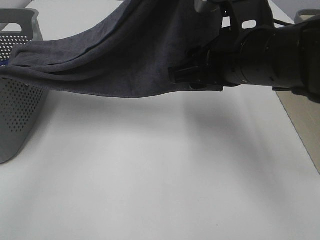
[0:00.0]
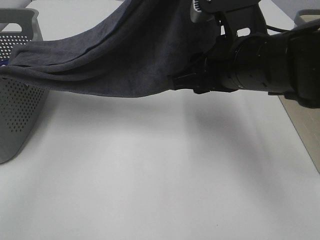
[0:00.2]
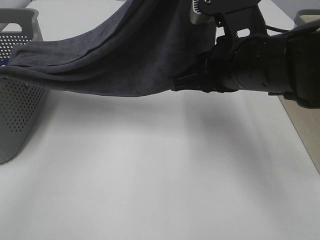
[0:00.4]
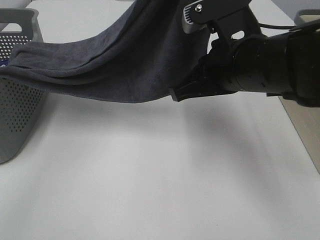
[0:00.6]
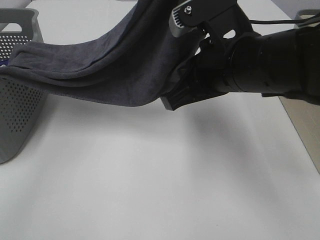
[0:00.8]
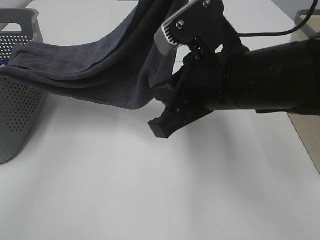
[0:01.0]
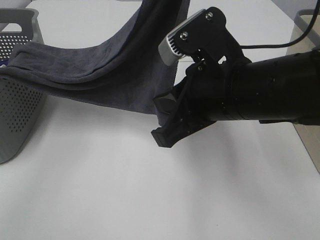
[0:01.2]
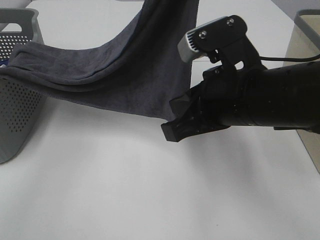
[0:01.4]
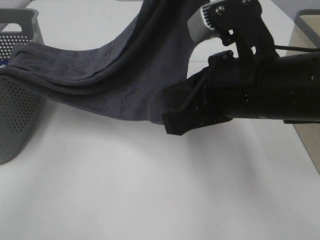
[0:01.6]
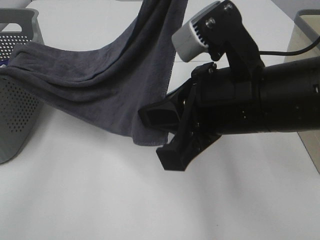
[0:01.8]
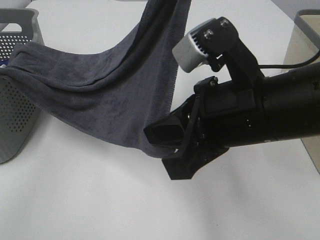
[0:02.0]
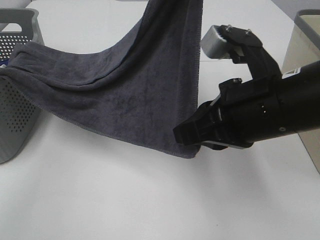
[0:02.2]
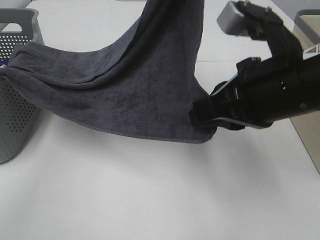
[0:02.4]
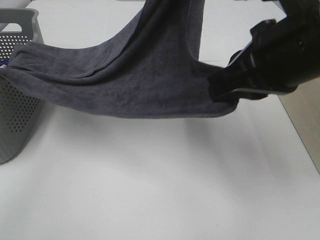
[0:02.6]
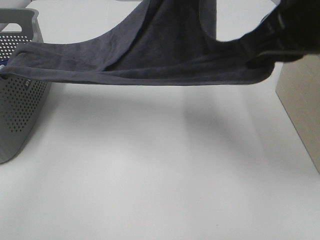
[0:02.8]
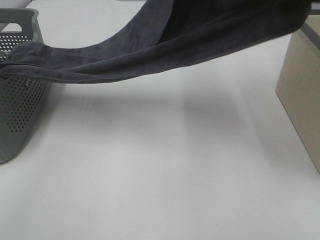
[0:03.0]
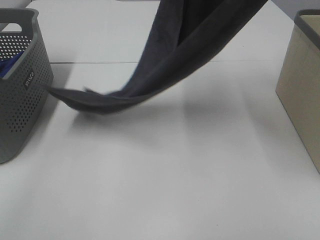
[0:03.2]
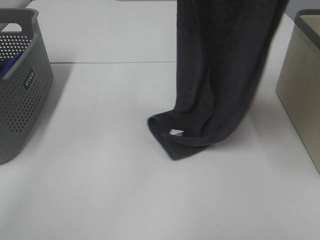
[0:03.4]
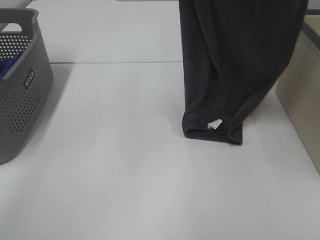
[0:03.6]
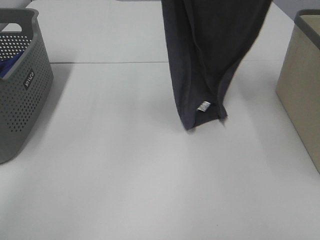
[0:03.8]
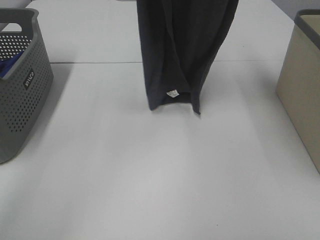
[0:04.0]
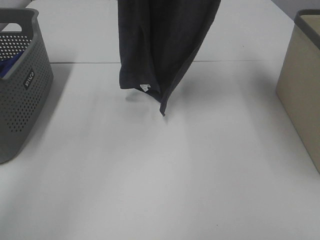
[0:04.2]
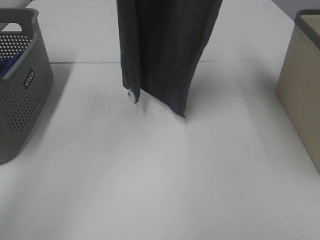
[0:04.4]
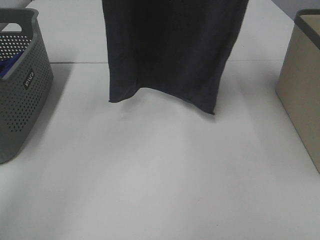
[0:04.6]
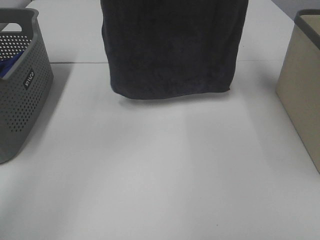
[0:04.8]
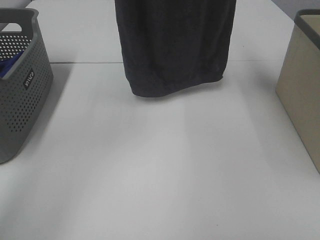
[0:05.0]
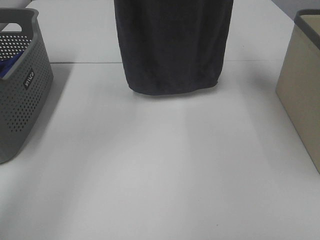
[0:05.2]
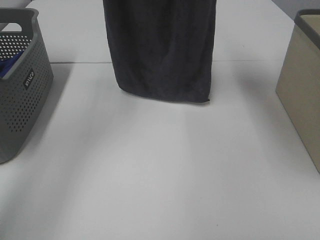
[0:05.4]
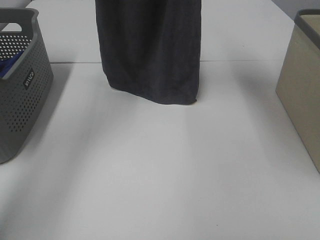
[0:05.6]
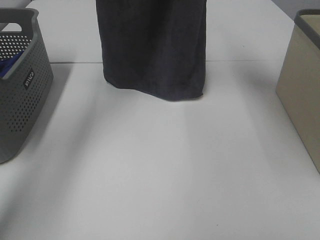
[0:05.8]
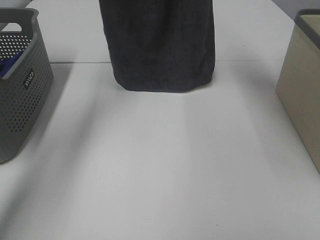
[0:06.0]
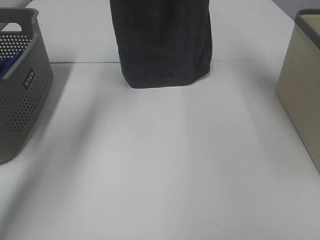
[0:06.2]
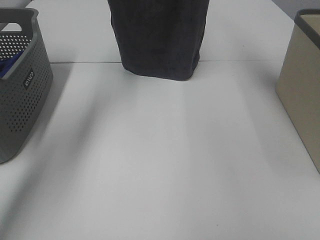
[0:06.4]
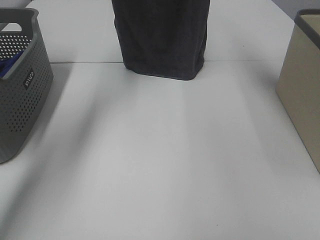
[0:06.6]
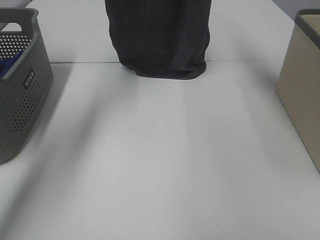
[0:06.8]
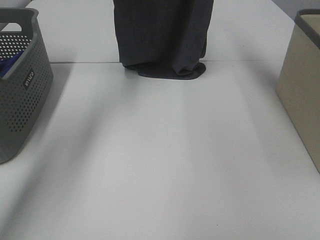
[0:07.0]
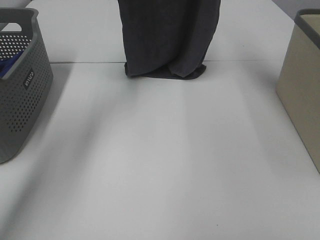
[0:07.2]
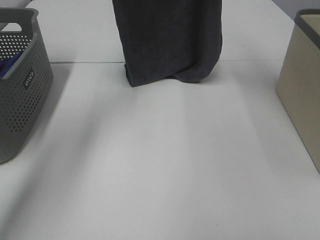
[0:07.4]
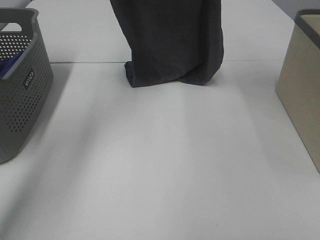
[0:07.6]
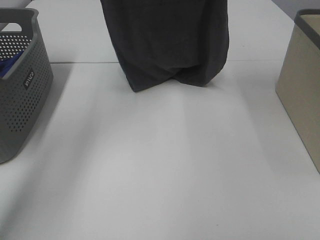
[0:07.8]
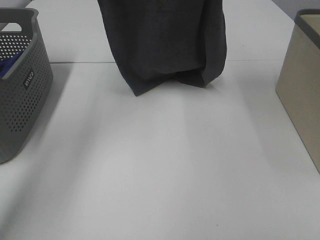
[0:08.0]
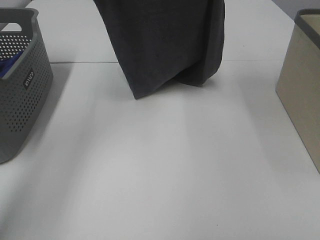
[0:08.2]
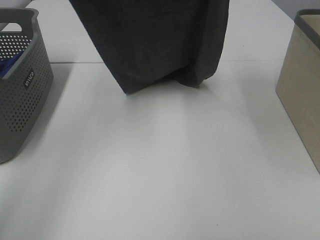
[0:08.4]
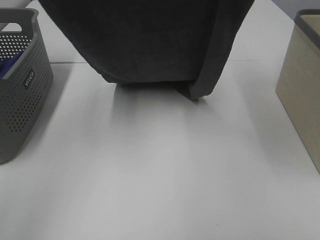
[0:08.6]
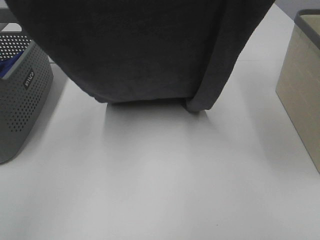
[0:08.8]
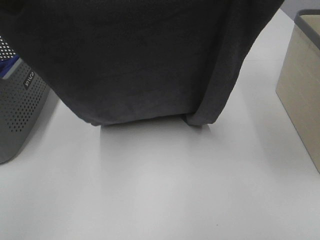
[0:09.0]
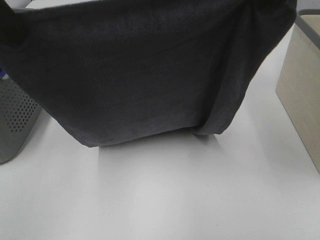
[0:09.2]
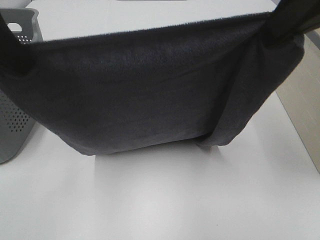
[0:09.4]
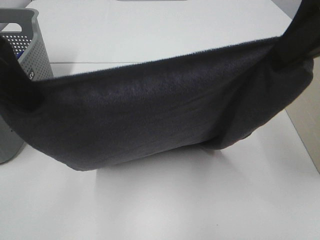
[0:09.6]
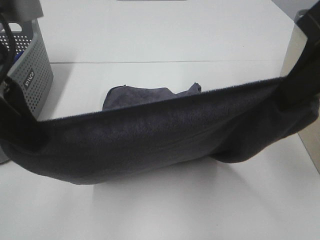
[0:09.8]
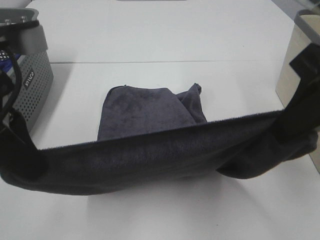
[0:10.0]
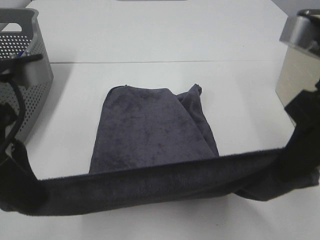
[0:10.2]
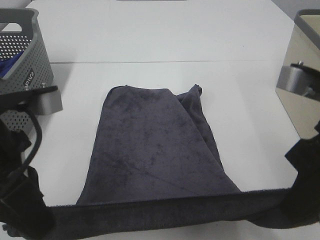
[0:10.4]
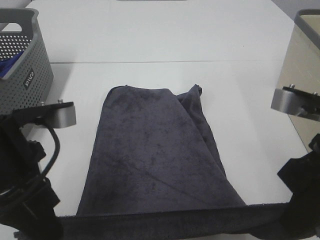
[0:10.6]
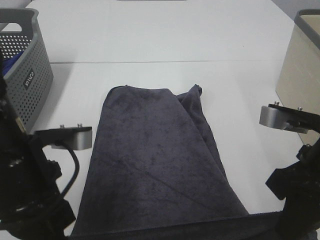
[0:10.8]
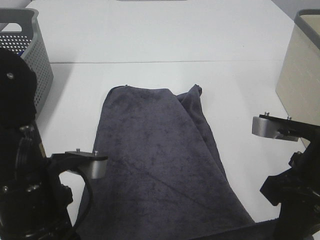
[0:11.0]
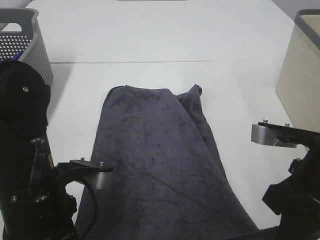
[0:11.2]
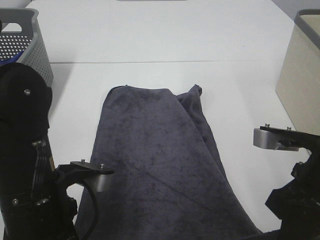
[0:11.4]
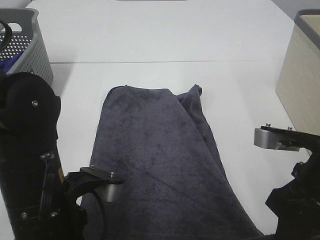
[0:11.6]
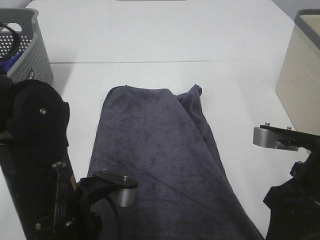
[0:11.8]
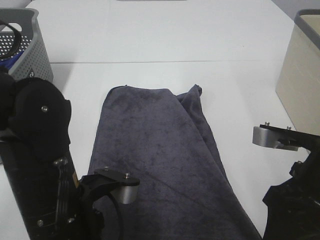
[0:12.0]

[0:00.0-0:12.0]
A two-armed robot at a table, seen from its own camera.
Task of the whole recording: Remove the towel and place it.
Step, 0:01.4 to 0:07.2: Left hand: spread the grey towel flat on the table.
Step, 0:01.4 to 0:07.2: Right hand: spread the grey towel flat on the table.
0:00.0 to 0:01.6: The right gripper closes up.
0:01.6 to 0:03.0: The right gripper shifts about 15 cm upward.
0:03.0 to 0:04.4: The right gripper goes approximately 20 cm upward and forward. The left gripper moves to the left, forward and upward, about 15 cm.
0:04.4 to 0:06.0: The right gripper moves forward, roughly 10 cm. The left gripper moves forward and downward, about 15 cm.
0:06.0 to 0:07.6: The left gripper ends up some 5 cm from where it was. The right gripper ends up approximately 5 cm from where it was.
0:07.6 to 0:09.0: Both grippers travel together backward, about 20 cm.
0:09.0 to 0:10.4: The two grippers go some 20 cm downward and backward.
0:10.4 to 0:12.0: The left gripper travels downward and to the right by roughly 10 cm, and opens up. Meanwhile the right gripper is displaced downward by about 5 cm, and opens its fingers.

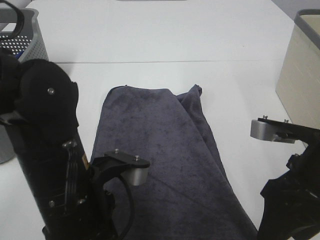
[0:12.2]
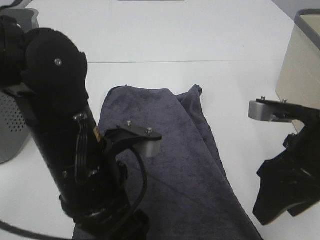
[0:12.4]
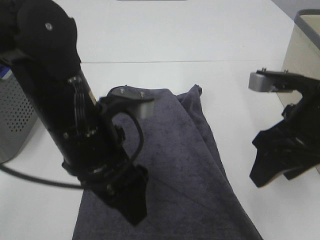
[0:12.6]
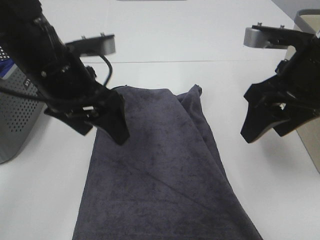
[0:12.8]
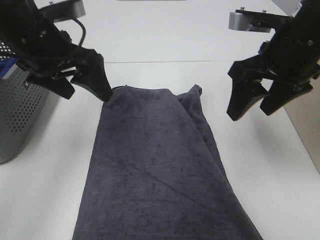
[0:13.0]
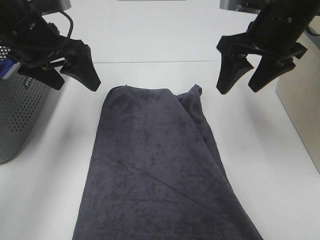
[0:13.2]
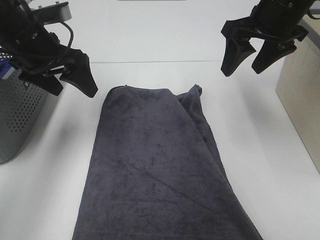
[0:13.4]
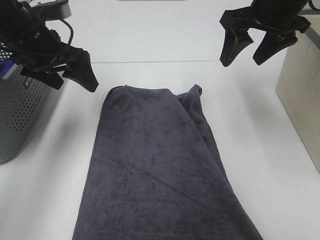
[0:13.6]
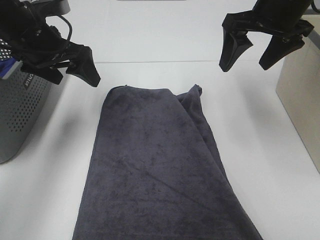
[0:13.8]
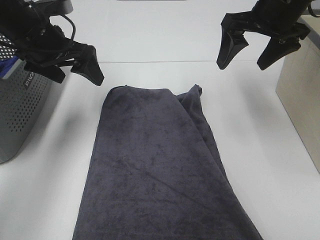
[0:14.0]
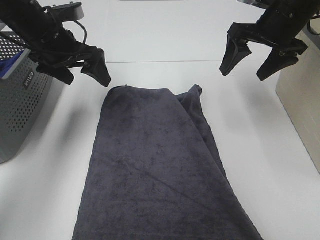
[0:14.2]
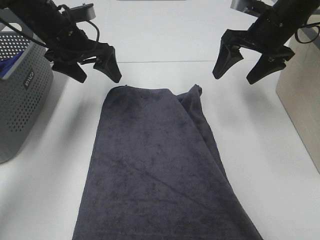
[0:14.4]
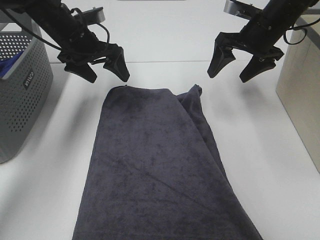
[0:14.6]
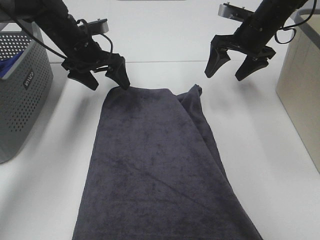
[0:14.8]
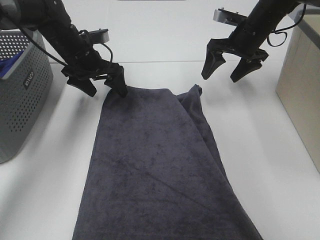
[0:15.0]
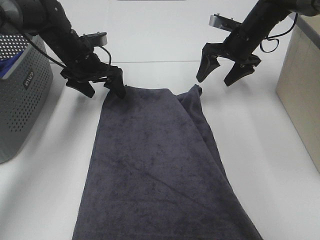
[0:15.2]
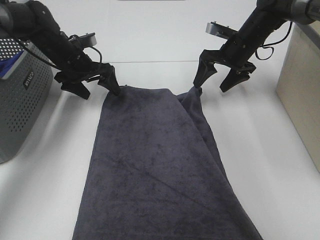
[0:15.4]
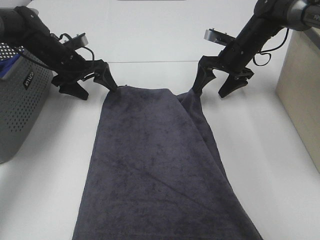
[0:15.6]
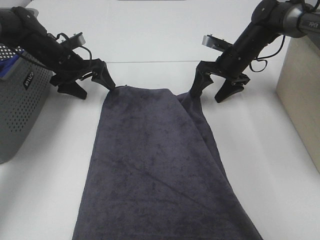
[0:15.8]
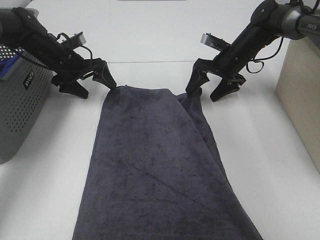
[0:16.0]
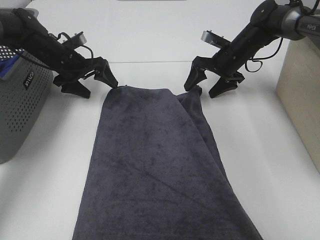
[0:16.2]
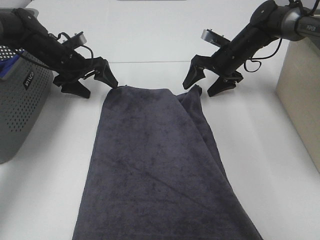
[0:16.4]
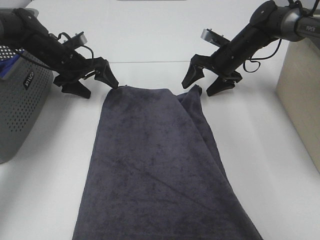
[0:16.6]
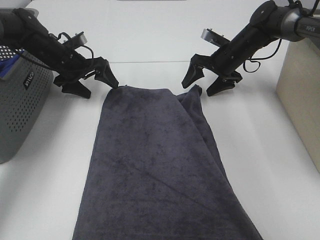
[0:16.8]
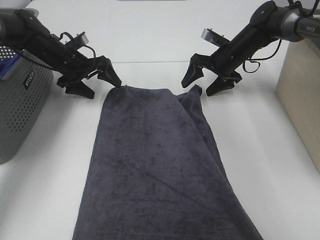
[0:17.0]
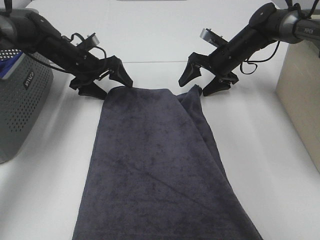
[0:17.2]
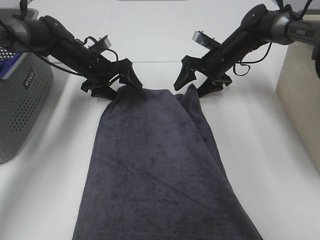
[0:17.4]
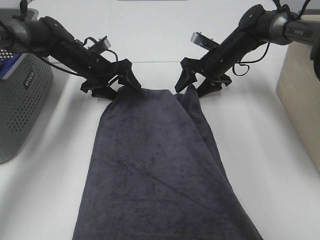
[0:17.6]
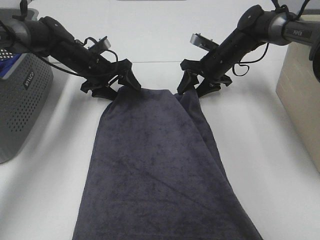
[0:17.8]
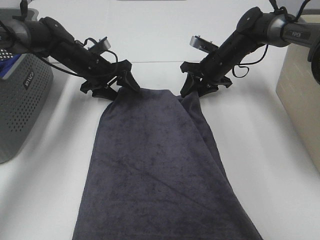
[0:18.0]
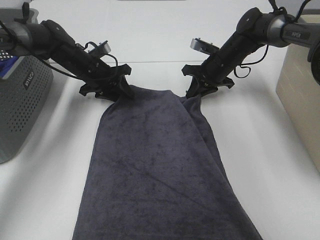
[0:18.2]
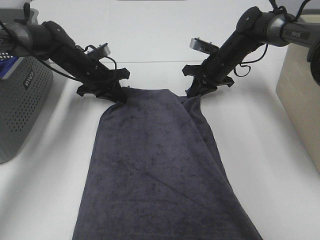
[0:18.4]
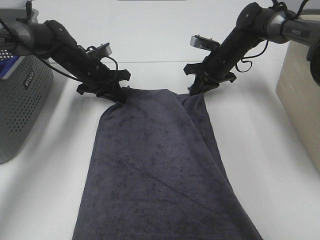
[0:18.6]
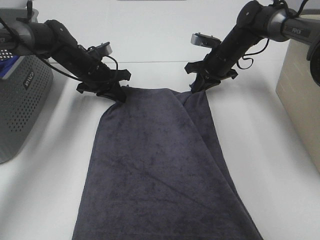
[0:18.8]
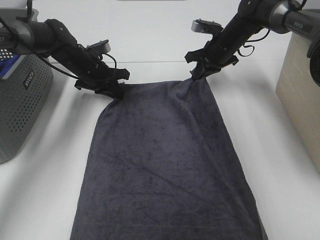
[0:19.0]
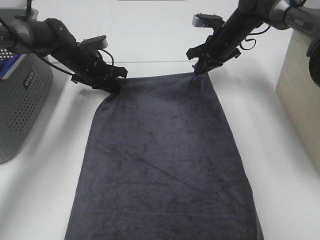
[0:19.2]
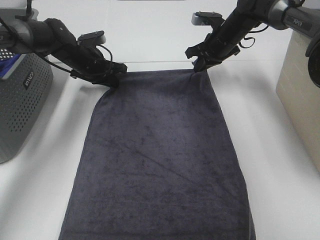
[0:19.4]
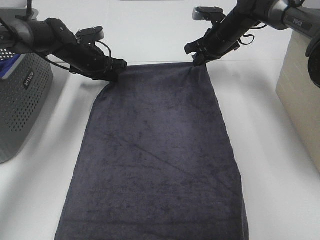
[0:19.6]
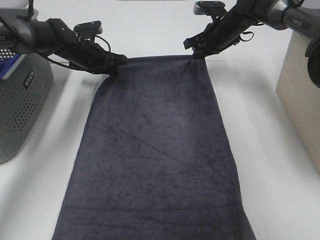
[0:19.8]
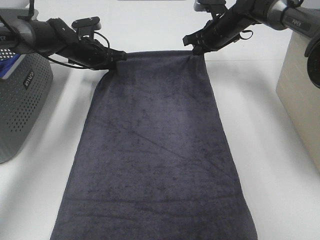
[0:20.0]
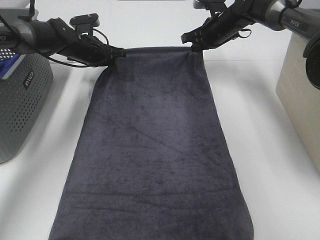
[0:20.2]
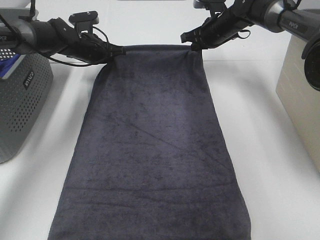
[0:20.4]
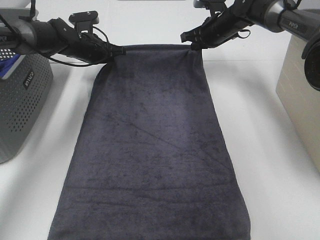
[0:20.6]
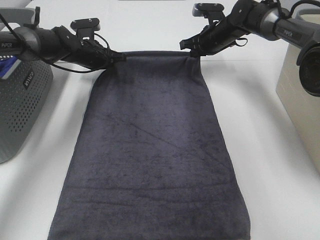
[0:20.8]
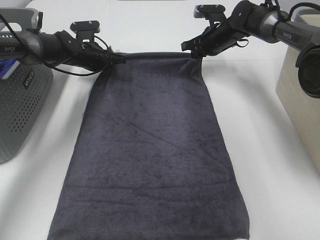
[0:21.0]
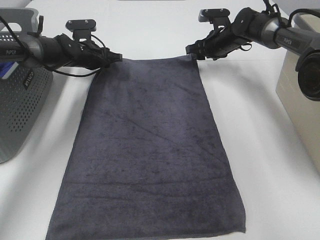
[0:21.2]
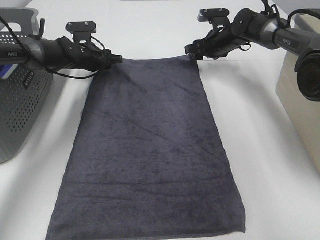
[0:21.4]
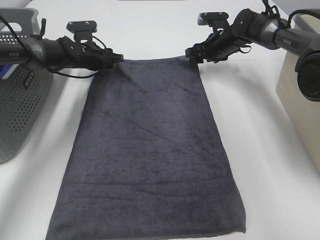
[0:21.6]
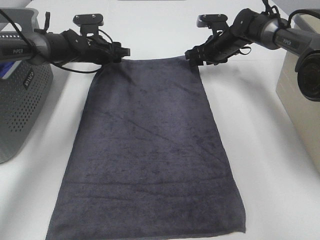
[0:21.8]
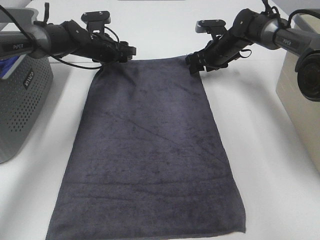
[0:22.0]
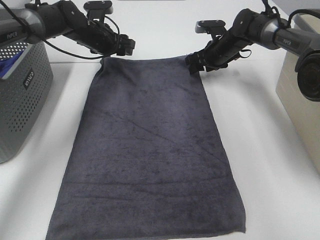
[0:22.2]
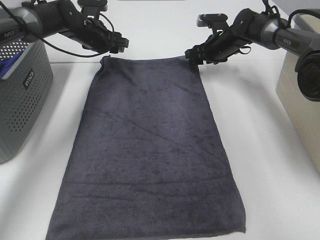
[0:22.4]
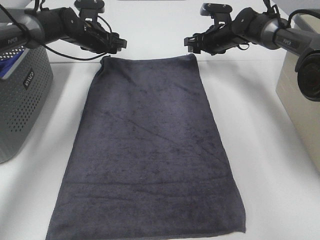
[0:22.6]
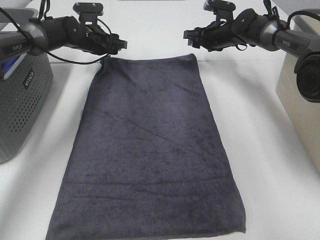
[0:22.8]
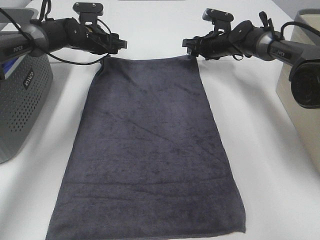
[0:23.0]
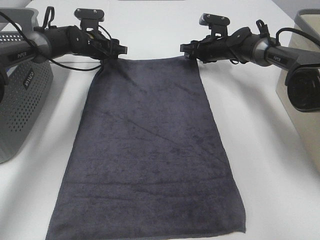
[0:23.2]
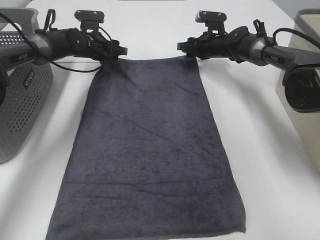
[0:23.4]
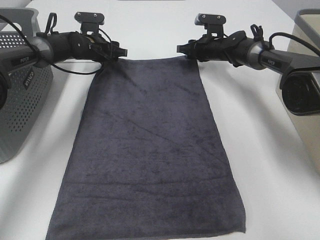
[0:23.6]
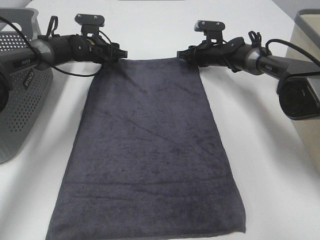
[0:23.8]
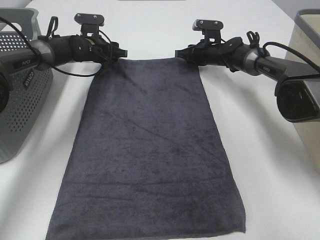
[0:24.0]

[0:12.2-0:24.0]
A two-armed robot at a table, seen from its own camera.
Task of the whole recording: Remove the towel and place it.
Step, 0:12.2 to 0:19.8: Left hand:adjust the gray towel.
Step, 0:12.2 to 0:19.8: Right hand:adjust the gray towel.
0:12.2 to 0:13.6: The right gripper heads forward and upward, covering about 25 cm. The left gripper heads forward and to the left, covering some 25 cm.
0:13.6 to 0:15.2: The left gripper heads forward and downward, covering some 15 cm. Meanwhile the right gripper moves downward and forward, about 20 cm.
0:15.2 to 0:16.6: The right gripper moves downward, approximately 5 cm.
0:16.6 to 0:18.2: The left gripper is displaced to the right by about 5 cm, and closes its fingers, while the right gripper closes.
0:18.2 to 0:19.6: The right gripper is displaced upward by roughly 5 cm, while the left gripper closes up.
0:21.0 to 0:22.6: The left gripper opens, while the right gripper opens up.
0:22.6 to 0:24.0: The right gripper goes some 5 cm downward.
